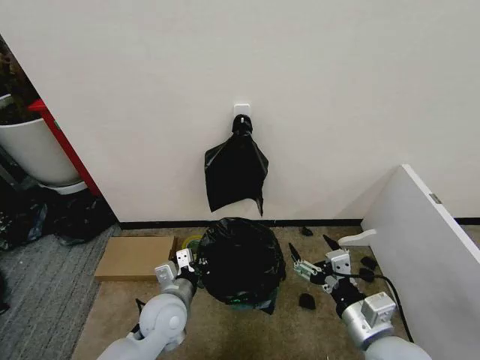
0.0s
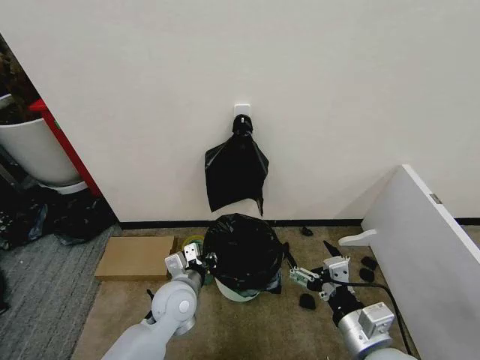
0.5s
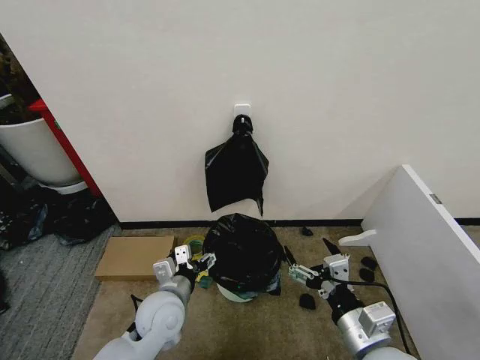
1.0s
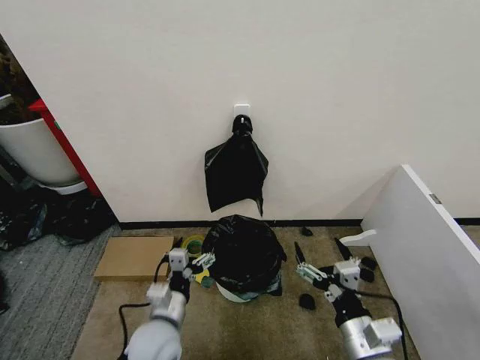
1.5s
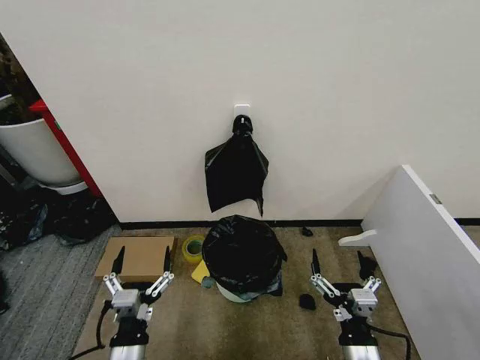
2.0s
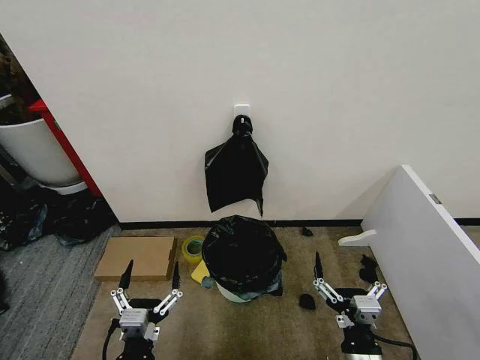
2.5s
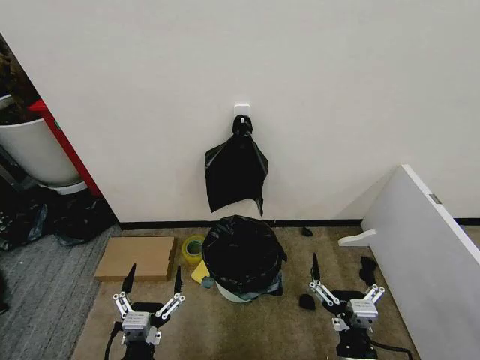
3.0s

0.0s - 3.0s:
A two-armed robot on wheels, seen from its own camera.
Task of the whole recording: Place the garbage bag over the trash bin.
0.0s - 1.5s: The left gripper is displaced backward by about 5 cm, and opens its fingers.
1.5s - 3.0s: The left gripper goes approximately 15 cm backward, while the right gripper changes place by some 5 cm.

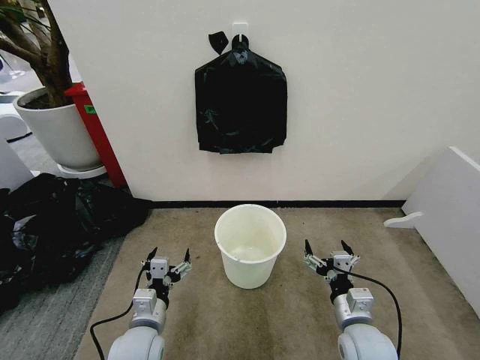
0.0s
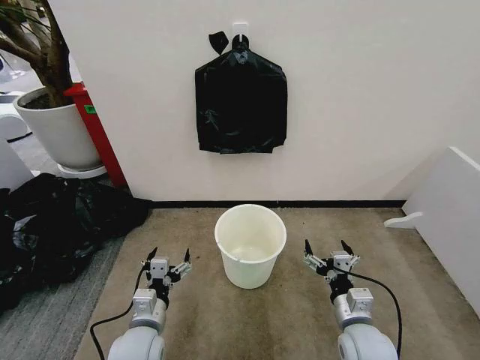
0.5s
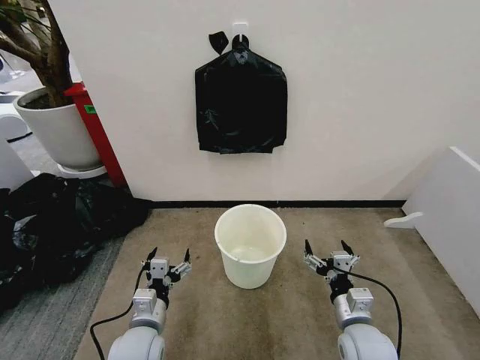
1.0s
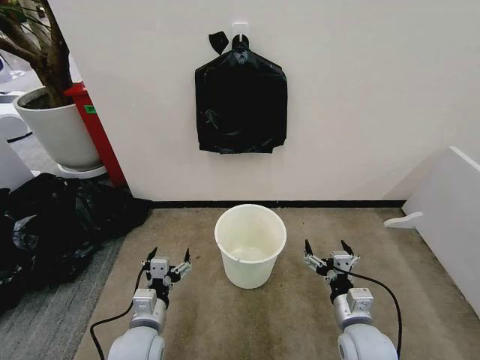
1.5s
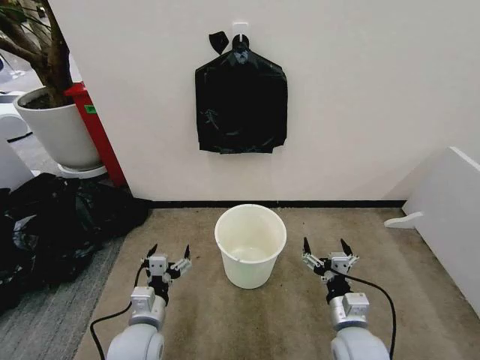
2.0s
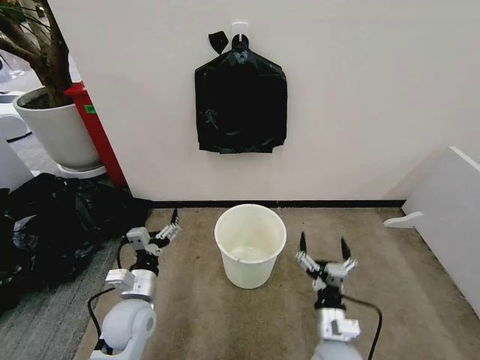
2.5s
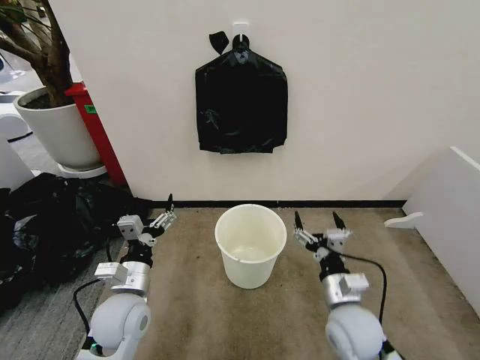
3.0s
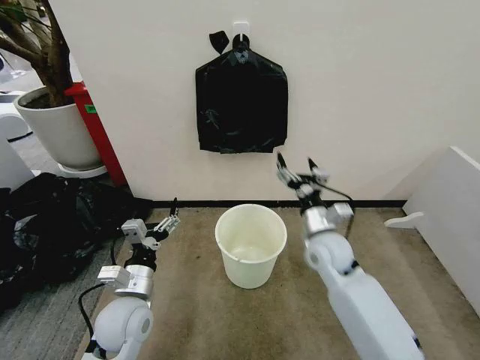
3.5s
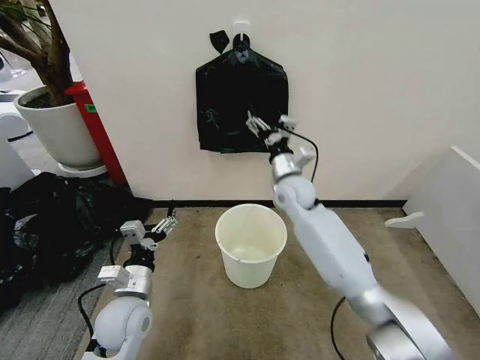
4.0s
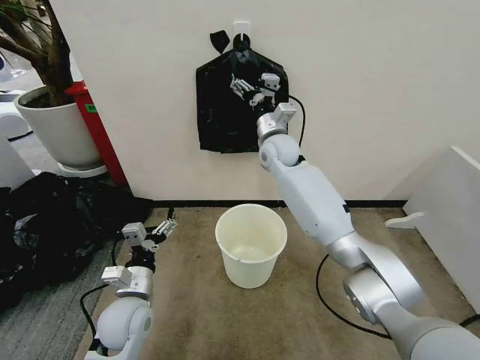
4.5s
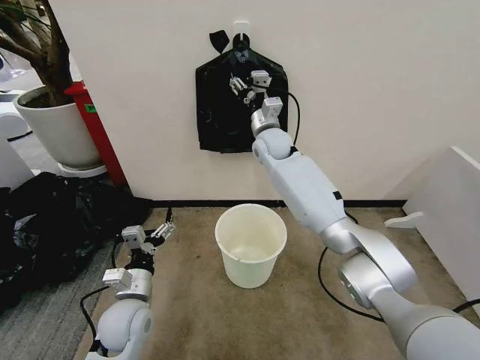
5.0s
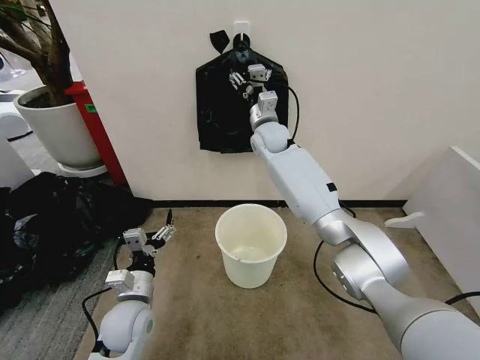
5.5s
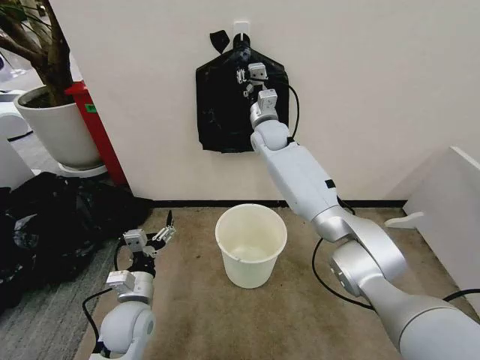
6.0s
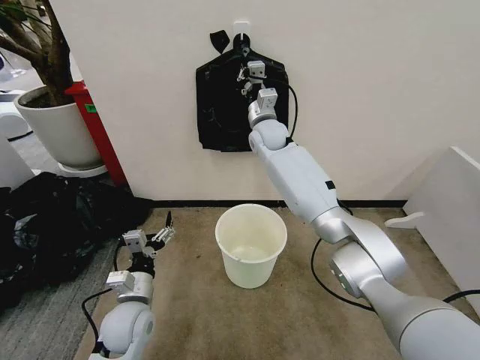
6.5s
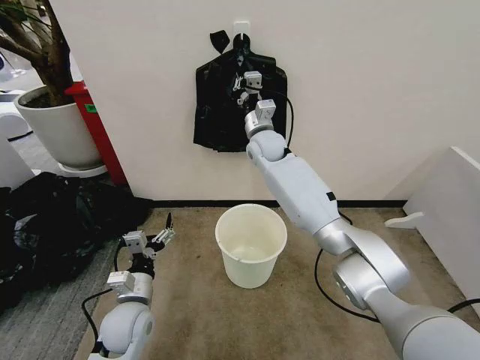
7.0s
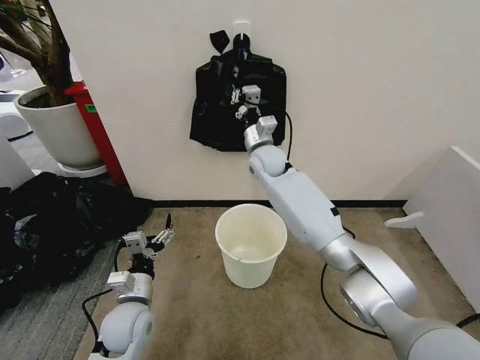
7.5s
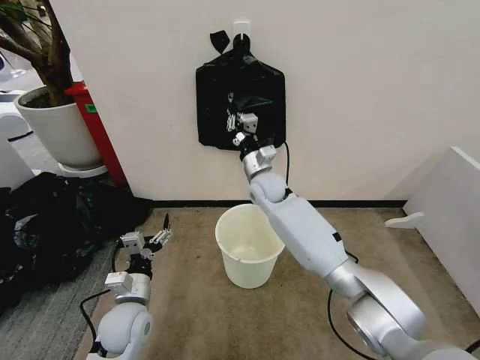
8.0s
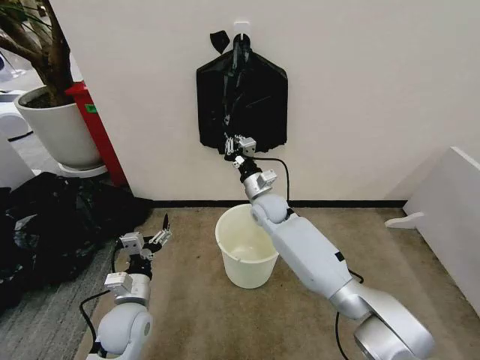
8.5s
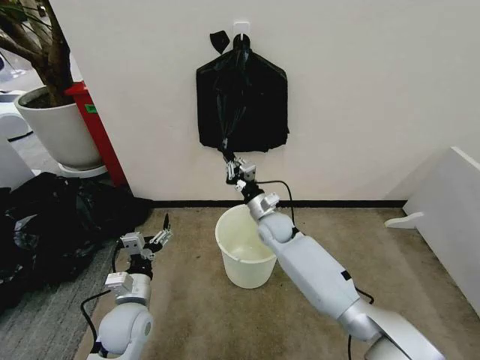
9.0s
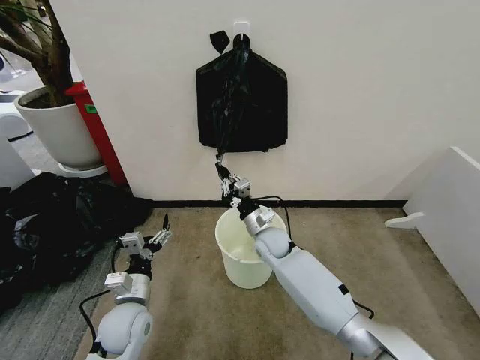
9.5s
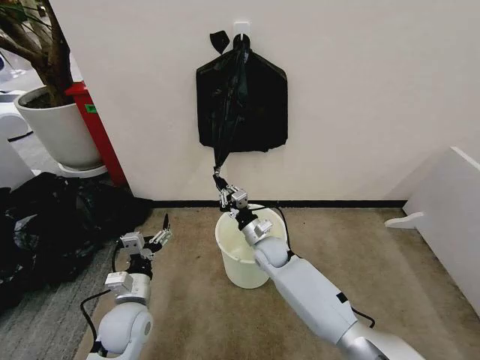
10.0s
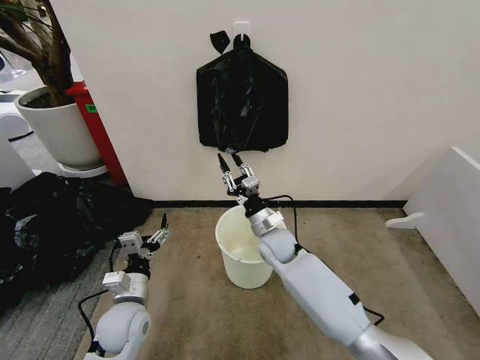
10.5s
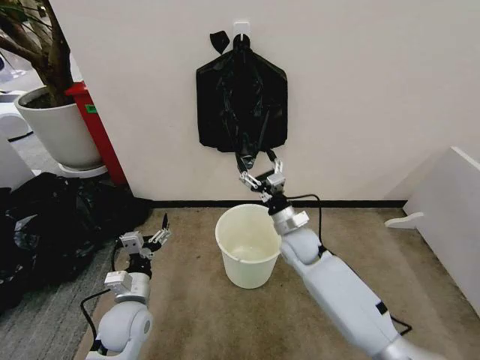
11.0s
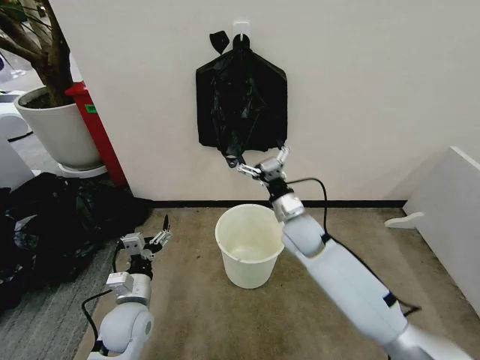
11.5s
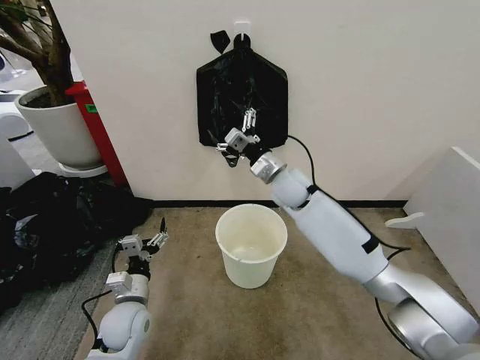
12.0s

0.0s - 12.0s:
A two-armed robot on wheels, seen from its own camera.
Task of the whole recording: Place the garbage bag over the trash bin.
2.0s - 4.0s: The left gripper moves some 5 cm. Meanwhile the right gripper heads forward and upward, covering about 35 cm.
4.0s - 6.0s: The right gripper shifts about 15 cm forward, upward and to the left, and closes up.
6.0s - 8.0s: The right gripper heads downward and backward, covering roughly 15 cm.
8.0s - 10.0s: The right gripper moves downward and backward, some 20 cm.
10.0s - 12.0s: The right gripper moves upward, some 20 cm, and opens its fingers.

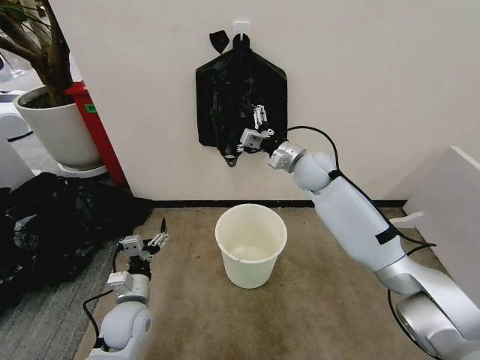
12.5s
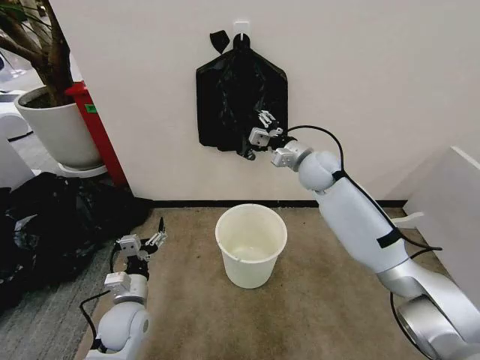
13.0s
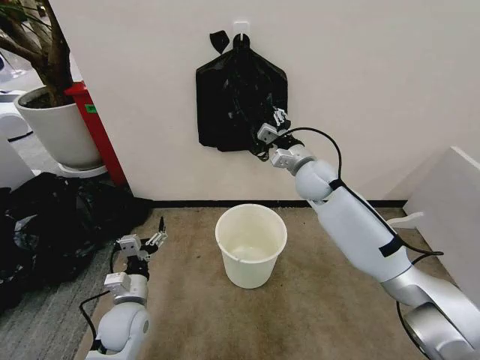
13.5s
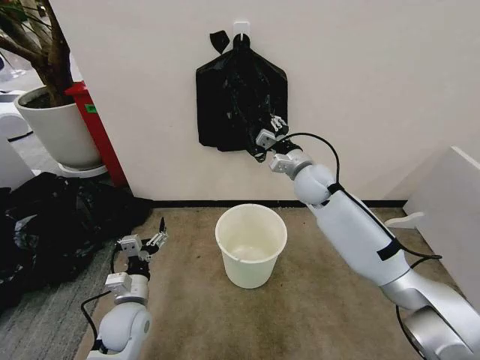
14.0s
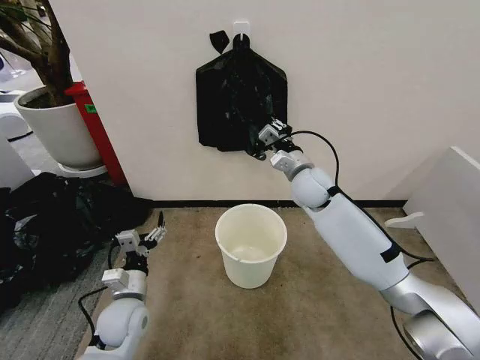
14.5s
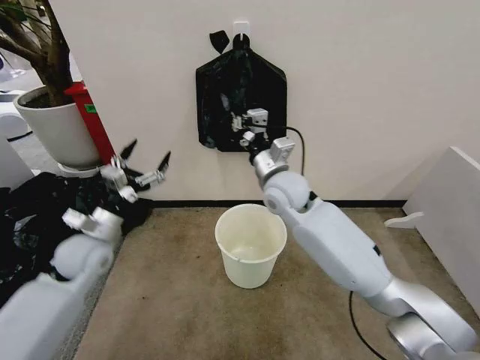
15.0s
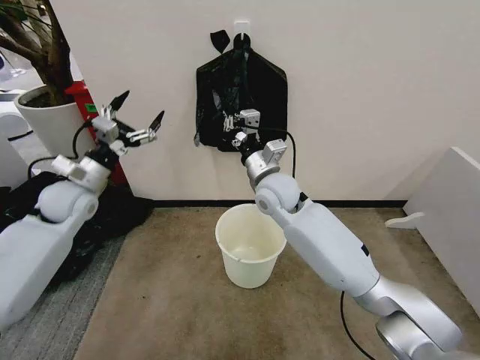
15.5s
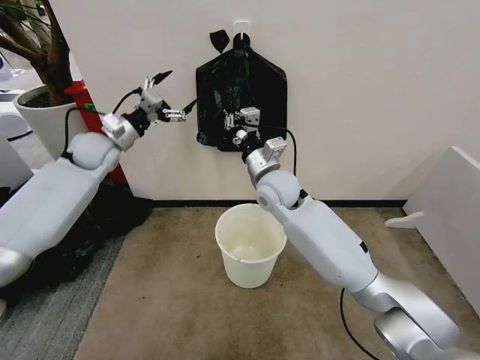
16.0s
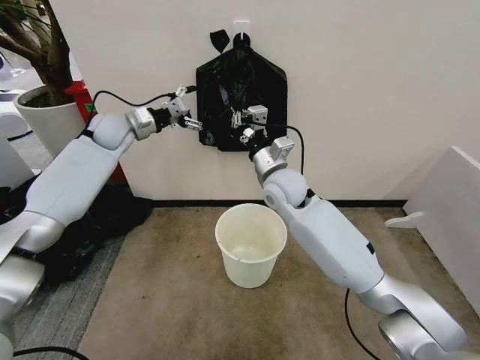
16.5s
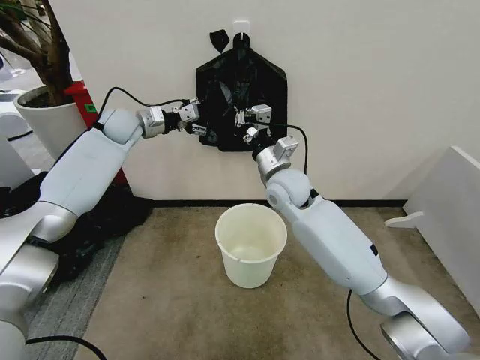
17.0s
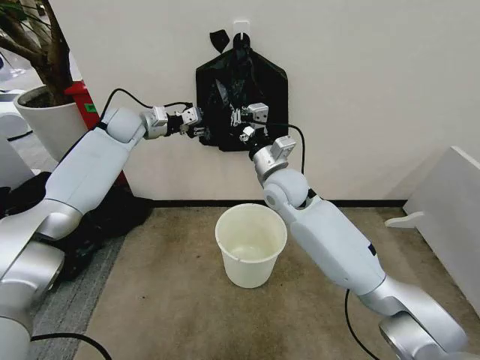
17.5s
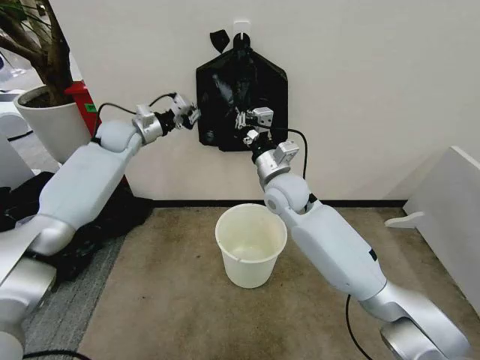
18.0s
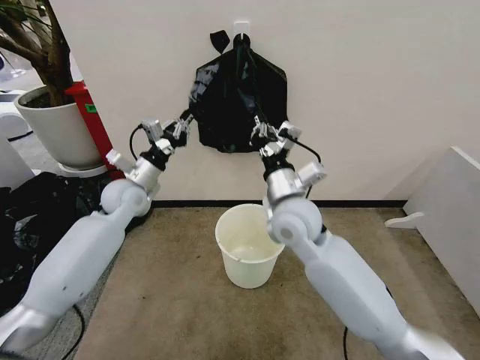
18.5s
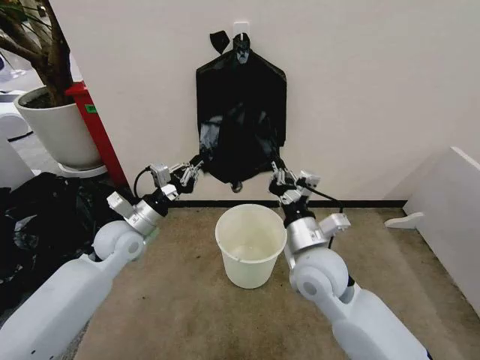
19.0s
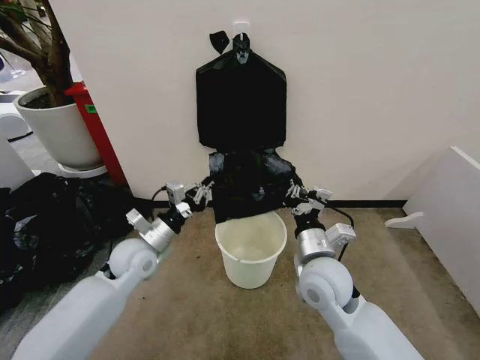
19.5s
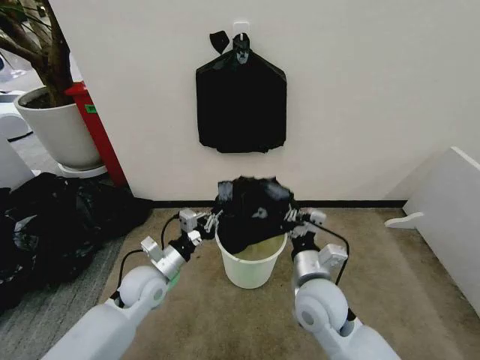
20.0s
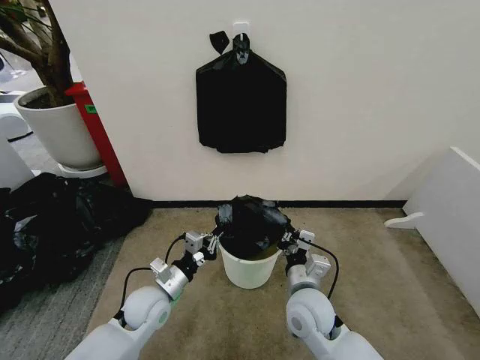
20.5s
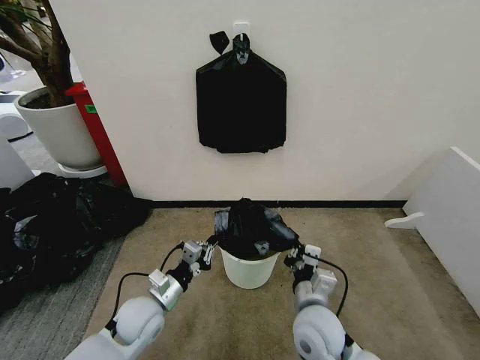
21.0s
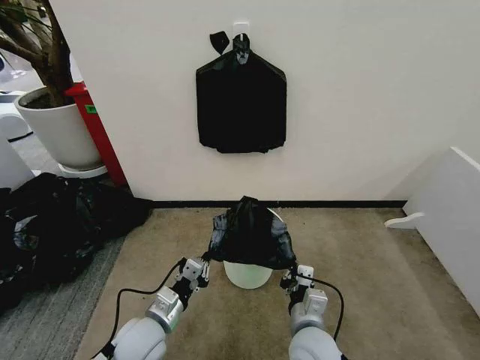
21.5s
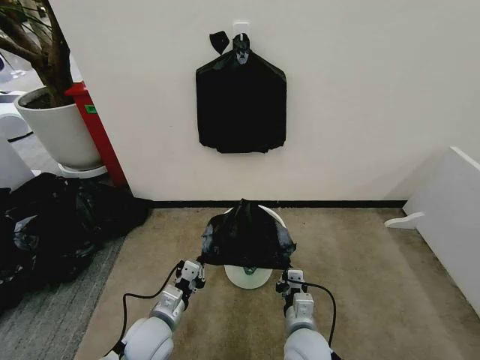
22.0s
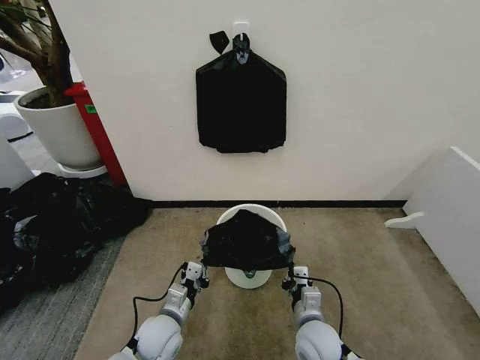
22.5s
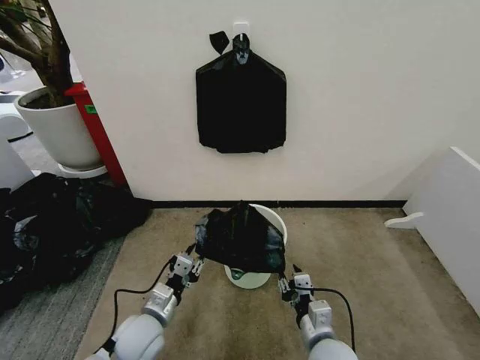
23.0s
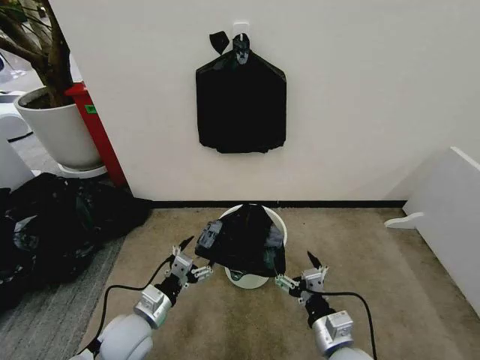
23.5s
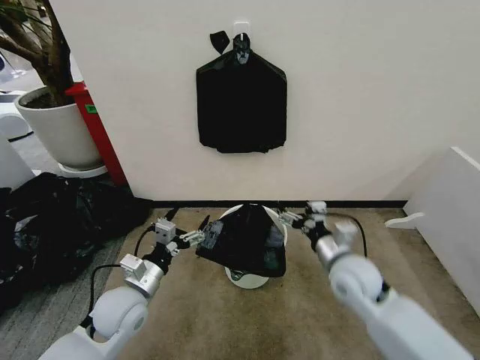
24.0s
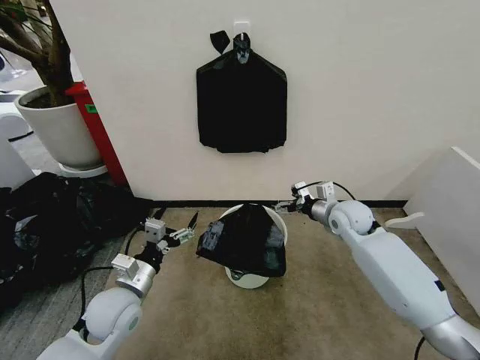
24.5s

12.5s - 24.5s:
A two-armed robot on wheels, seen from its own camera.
Task of the whole recording: Place the garbage bag over the trash bin.
12.5s - 14.5s: The right gripper closes up.
14.5s - 16.5s: The left gripper goes approximately 40 cm forward and upward. The right gripper is displaced to the left by about 5 cm.
16.5s - 18.5s: The left gripper is displaced backward and downward by about 15 cm, and closes. Meanwhile the right gripper is displaced backward by about 10 cm.
18.5s - 20.5s: The right gripper travels downward and backward by roughly 20 cm; the left gripper heads backward and downward, covering roughly 25 cm.
20.5s - 22.5s: The right gripper moves downward, about 10 cm, while the left gripper travels downward by roughly 5 cm.
22.5s - 24.5s: The right gripper shifts roughly 30 cm forward, upward and to the right, and opens its fingers. The left gripper moves upward and to the left, approximately 15 cm, and opens up.
